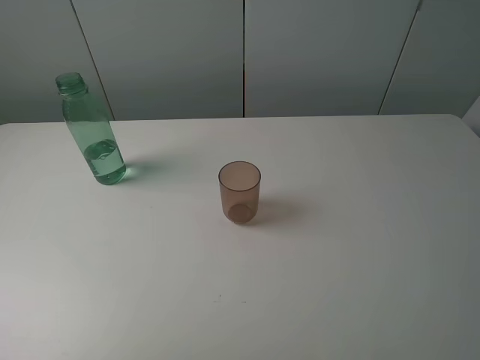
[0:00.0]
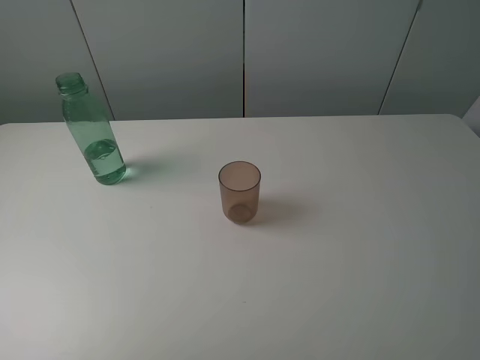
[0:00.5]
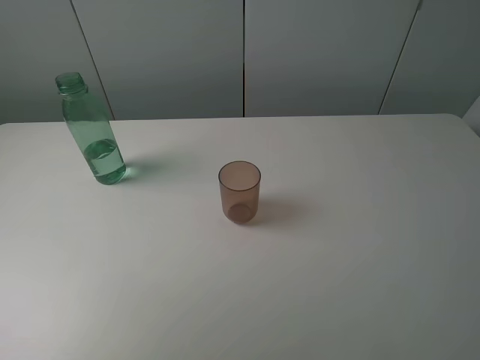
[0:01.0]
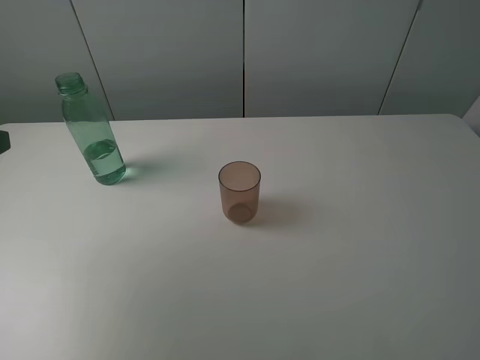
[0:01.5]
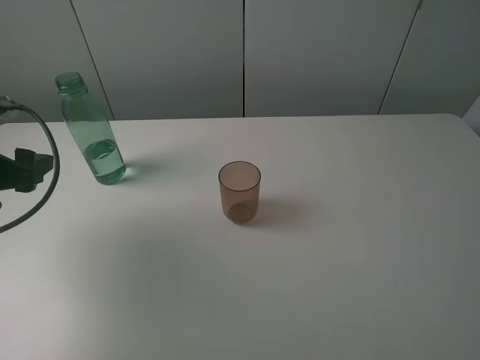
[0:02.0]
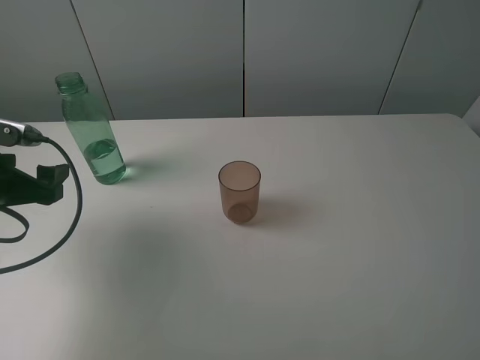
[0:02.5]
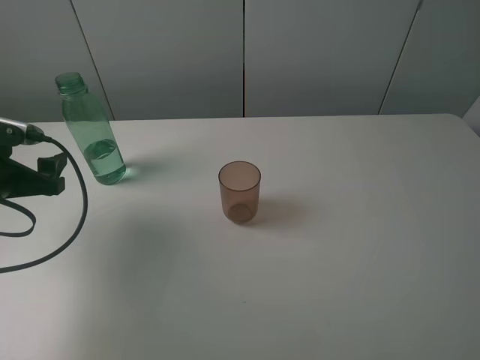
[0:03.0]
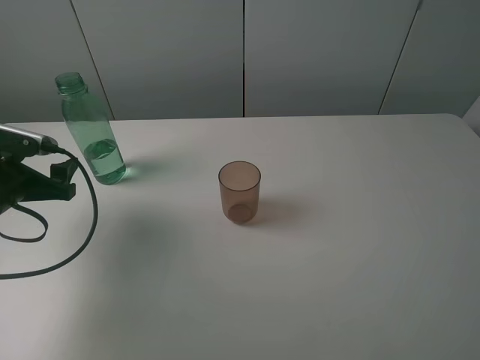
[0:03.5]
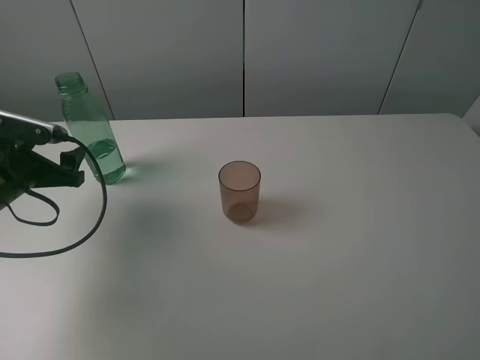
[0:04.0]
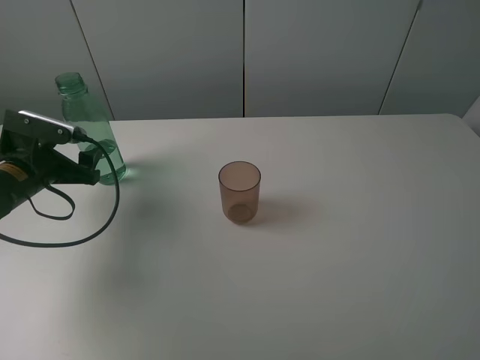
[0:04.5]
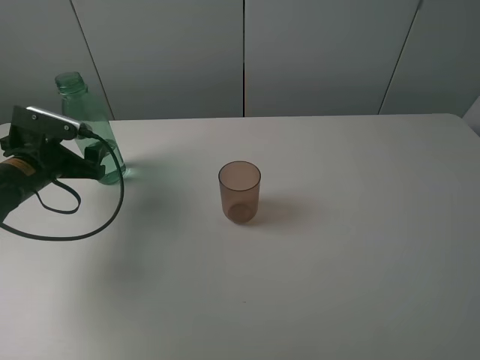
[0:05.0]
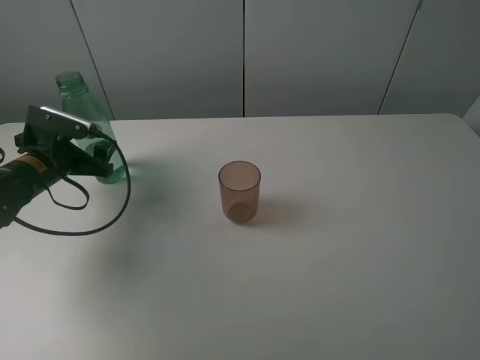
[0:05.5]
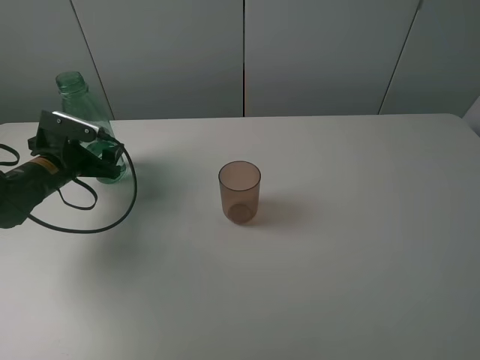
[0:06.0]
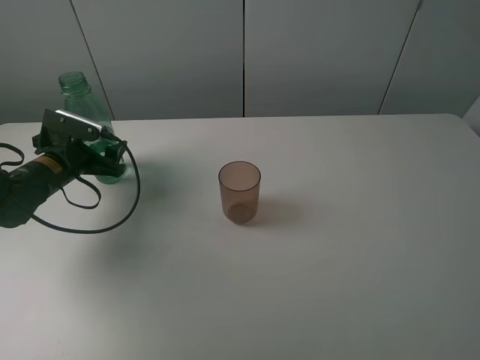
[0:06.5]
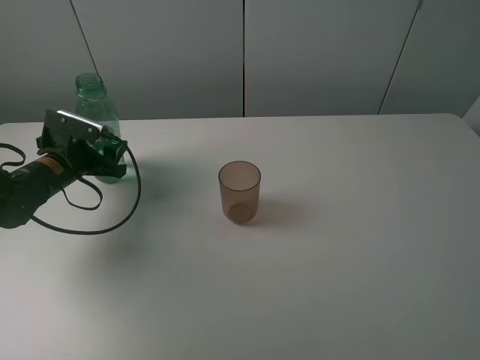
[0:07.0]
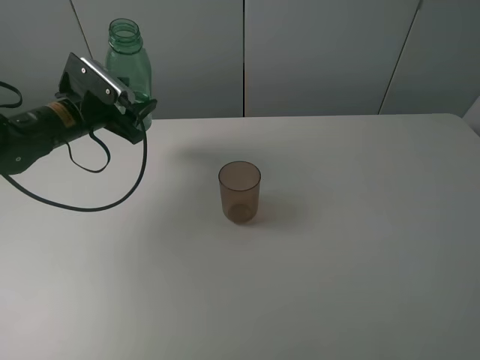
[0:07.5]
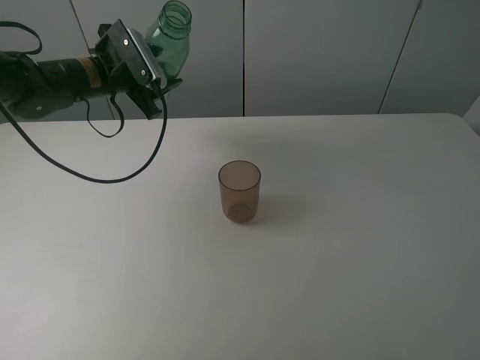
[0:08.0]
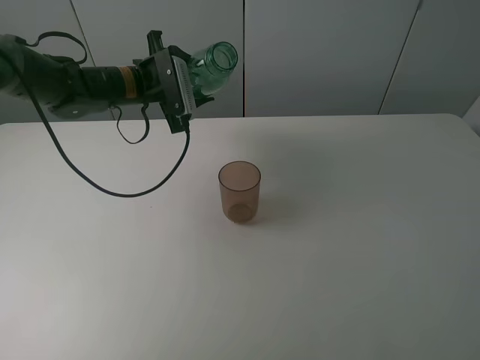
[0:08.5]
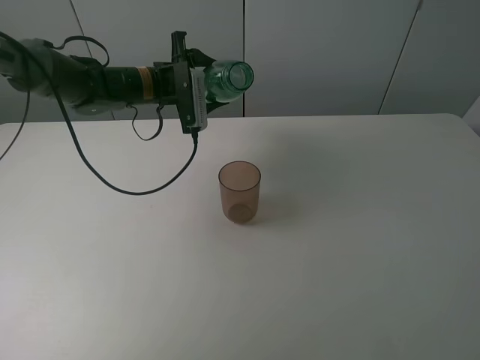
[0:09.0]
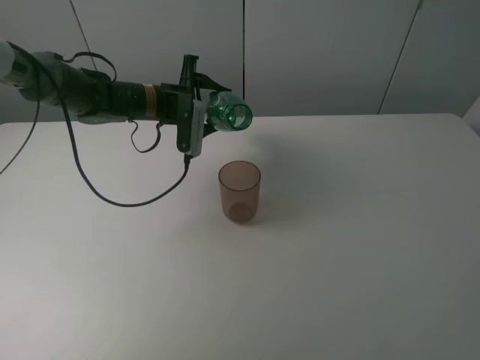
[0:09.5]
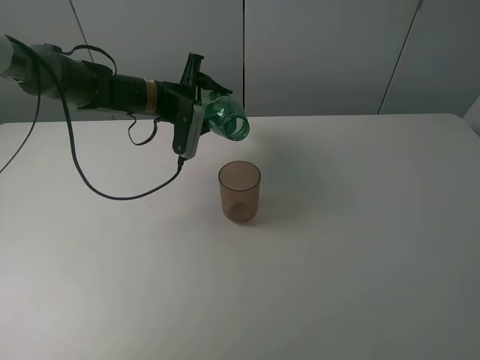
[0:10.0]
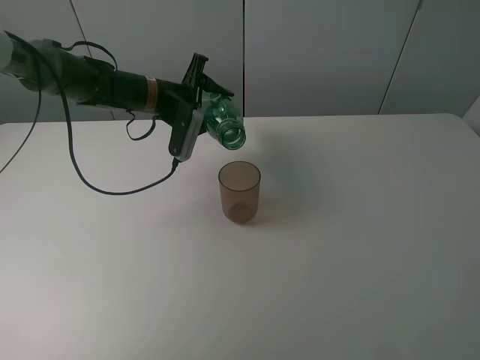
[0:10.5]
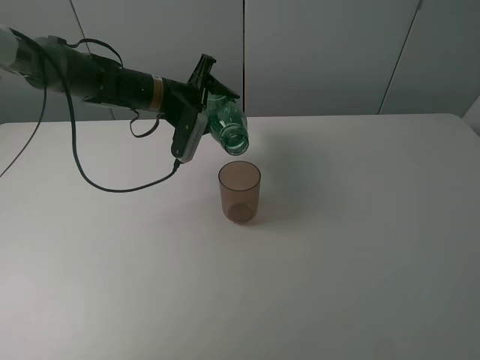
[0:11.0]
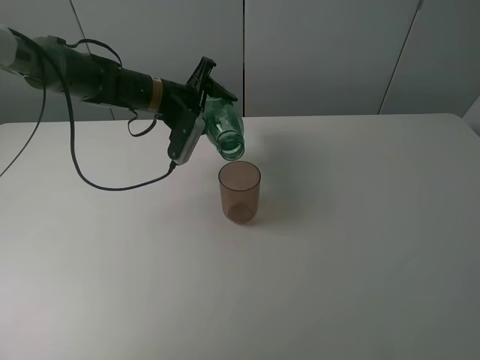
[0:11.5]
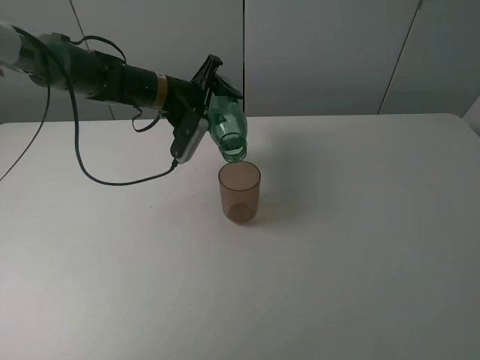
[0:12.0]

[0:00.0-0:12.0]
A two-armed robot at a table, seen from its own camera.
Task of the whole recording: pick up the bottle filled with water and pour it into the pink cup.
Step, 0:00.0 to 0:06.5: Grasp the green bottle with the left gripper.
0:00.0 to 0:02.0: The left gripper heads forward and downward, covering some 25 cm.
0:02.0 to 0:04.0: The left gripper is displaced downward and forward by some 10 cm.
0:04.0 to 0:06.0: The left gripper travels forward by about 5 cm.
0:06.0 to 0:08.0: The left gripper shifts about 15 cm upward, to the right and forward, and closes its fingers.
0:08.0 to 0:10.0: The left gripper is displaced to the right by roughly 5 cm.
0:10.0 to 0:12.0: There are only small adjustments of the grippers.

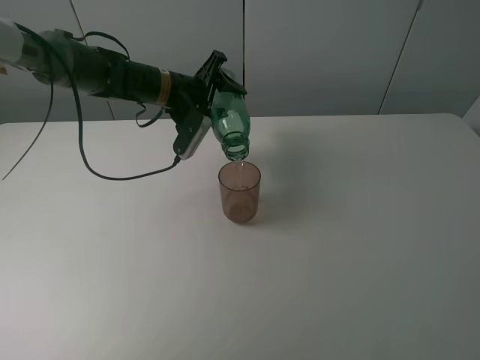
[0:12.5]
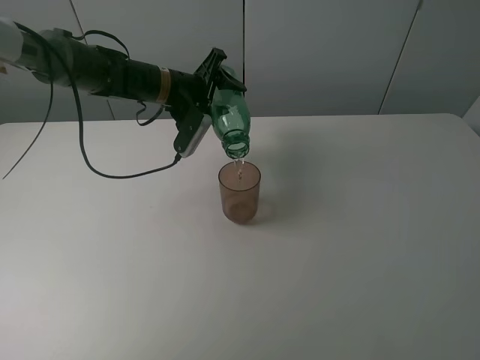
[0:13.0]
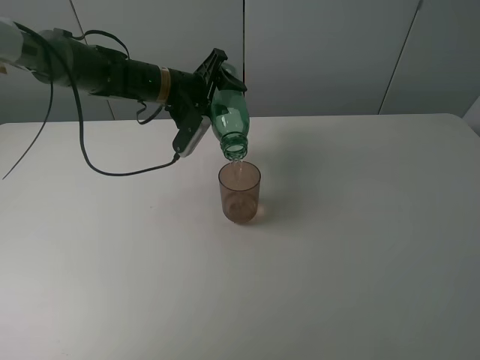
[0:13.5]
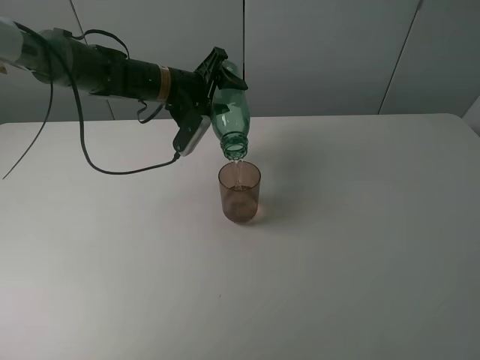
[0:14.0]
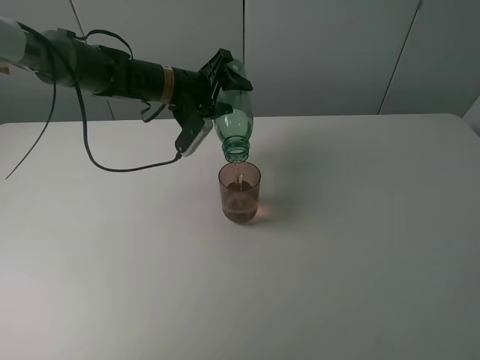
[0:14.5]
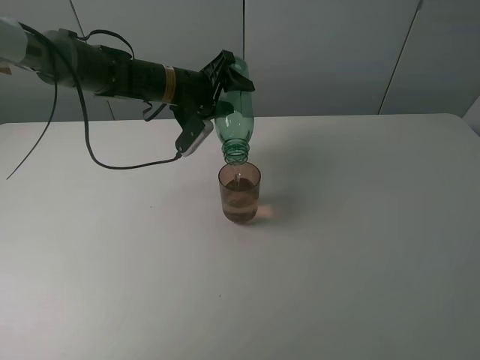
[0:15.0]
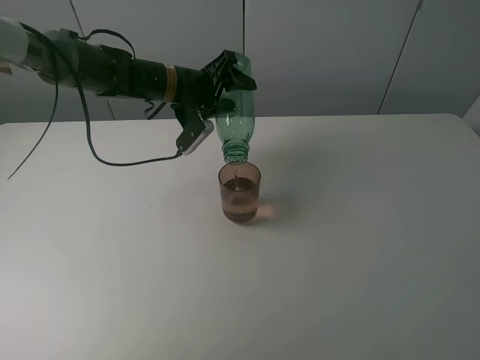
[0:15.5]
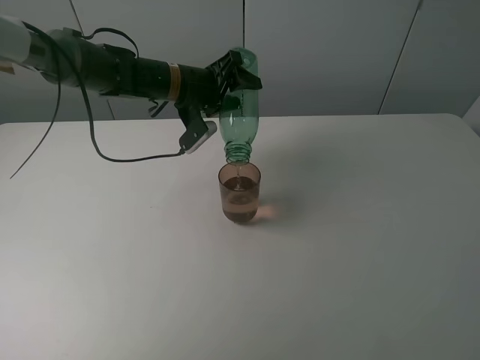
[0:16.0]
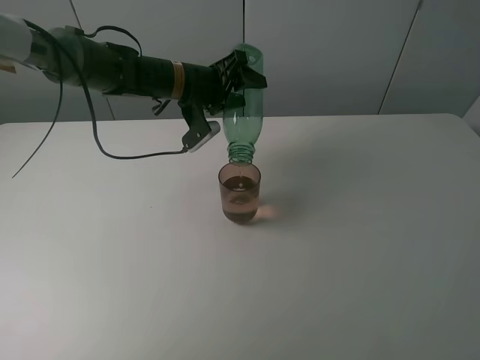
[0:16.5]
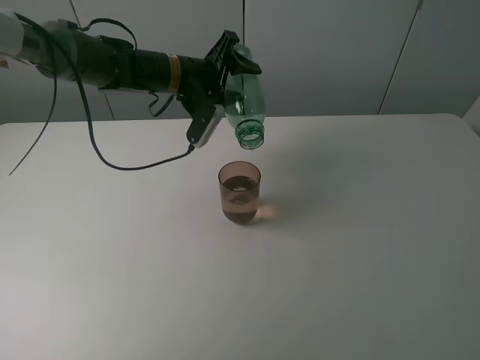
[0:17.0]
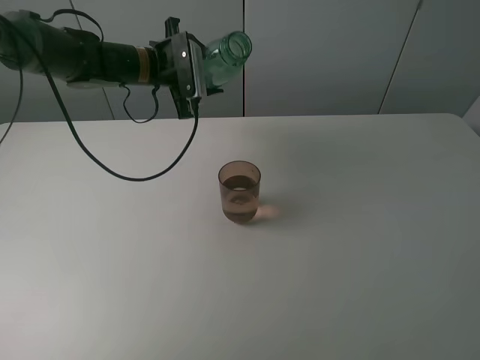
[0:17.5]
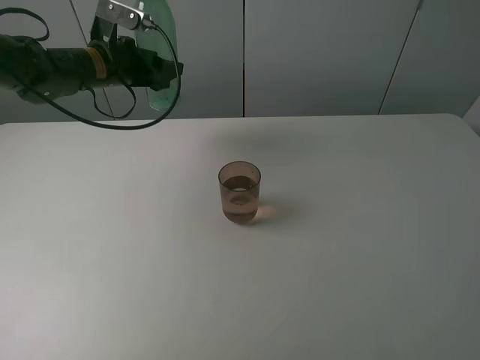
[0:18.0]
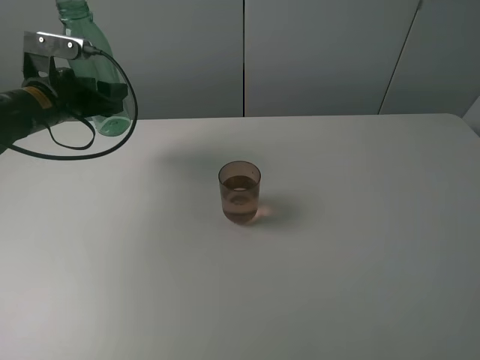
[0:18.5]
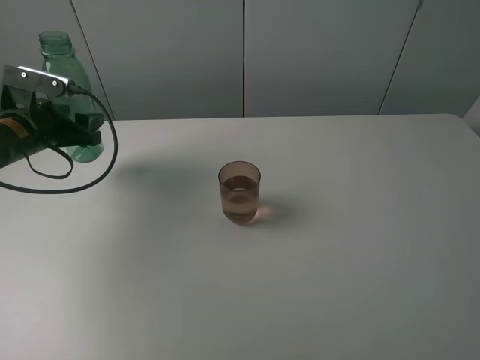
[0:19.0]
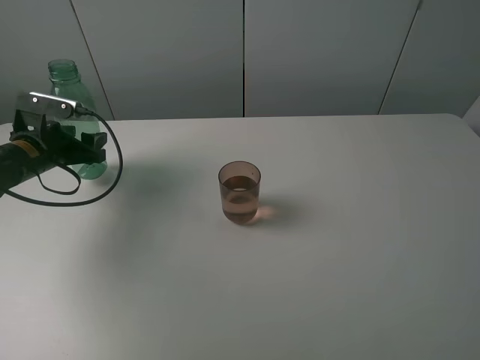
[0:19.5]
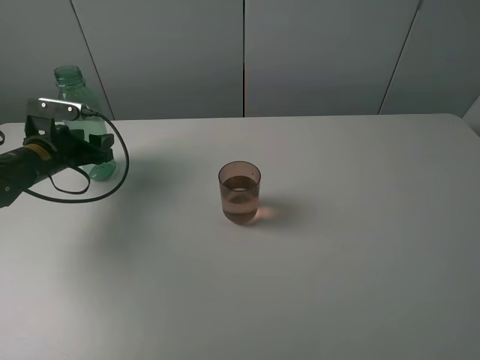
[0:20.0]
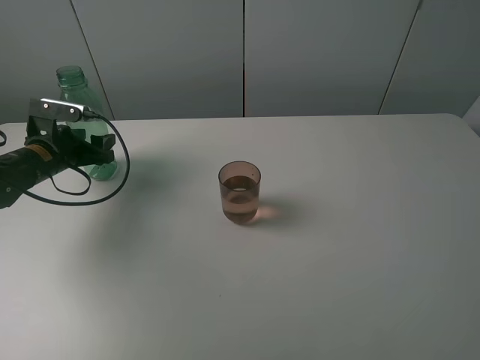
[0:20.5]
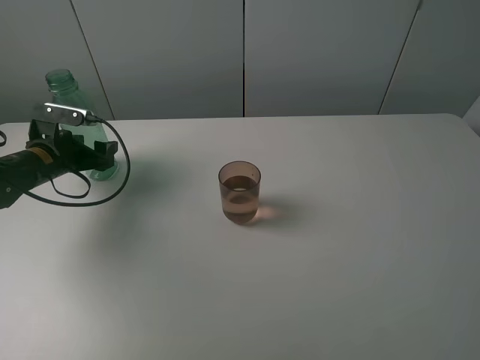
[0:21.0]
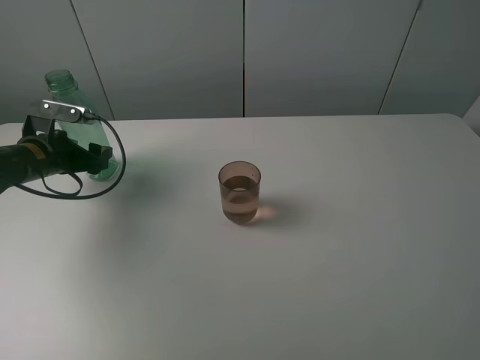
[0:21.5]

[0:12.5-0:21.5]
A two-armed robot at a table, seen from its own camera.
Task of the whole recording: pick up the bottle filled with water and pour it into the pink cup.
Step, 0:12.5 to 0:17.0: Pour water from green bottle to pink cup with the left gripper.
0:12.5 to 0:14.5: The grippers move only a little.
0:14.5 to 0:17.0: The grippers move only a little.
0:17.0 to 0:19.5: The left gripper travels to the left and backward by roughly 25 cm.
0:19.5 to 0:21.5: The left gripper opens its fingers.

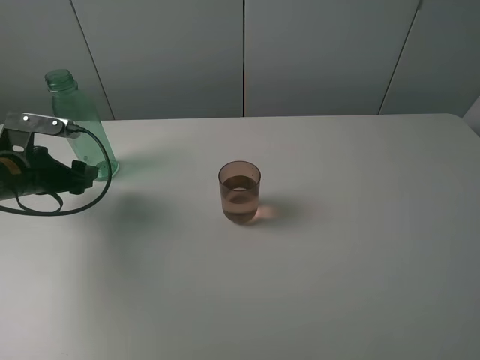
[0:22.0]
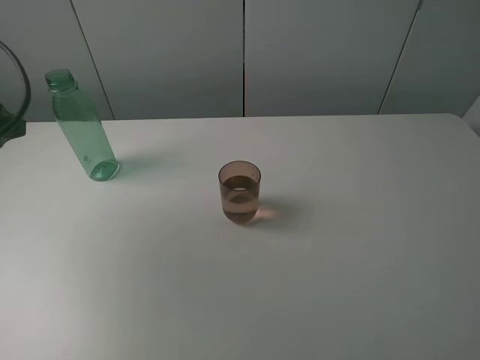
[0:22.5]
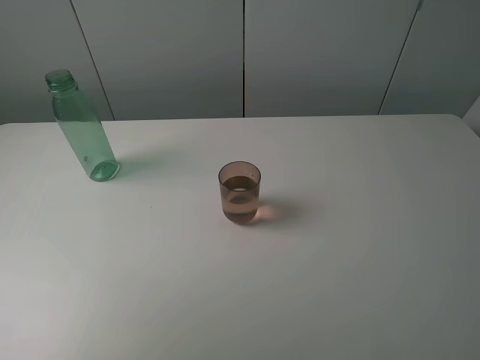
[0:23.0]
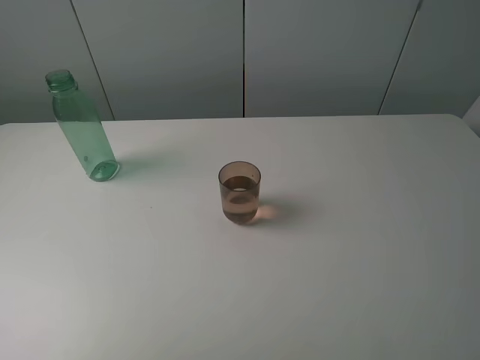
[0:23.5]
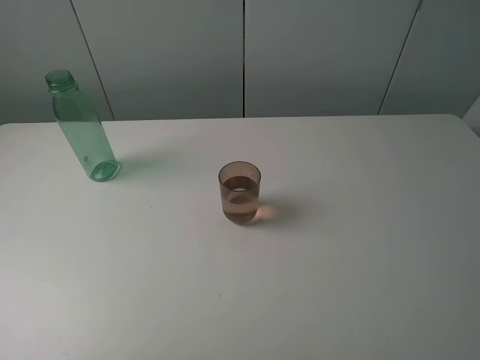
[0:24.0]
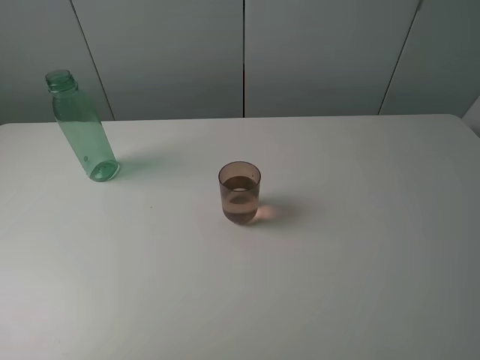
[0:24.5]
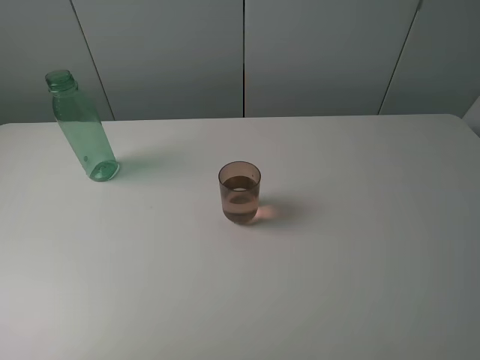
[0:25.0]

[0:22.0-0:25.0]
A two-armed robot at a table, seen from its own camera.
Task of the whole recording: pick up the bottle filled with water and pour it into the pink cup.
0:22.0 to 0:23.5: The left gripper shifts roughly 35 cm backward and upward.
